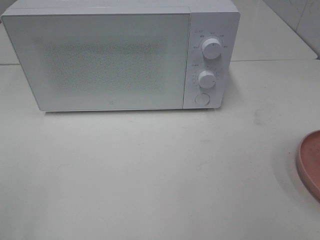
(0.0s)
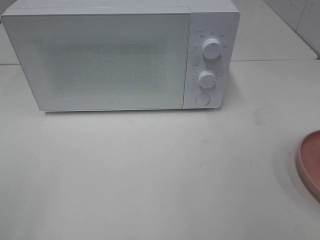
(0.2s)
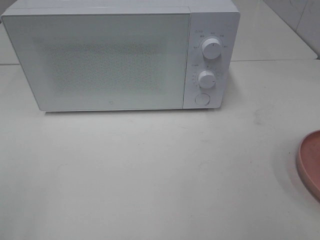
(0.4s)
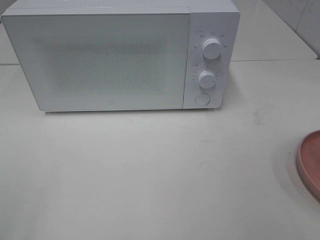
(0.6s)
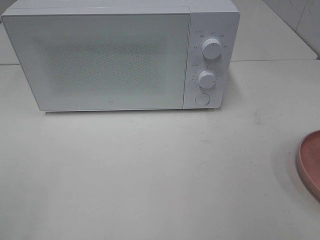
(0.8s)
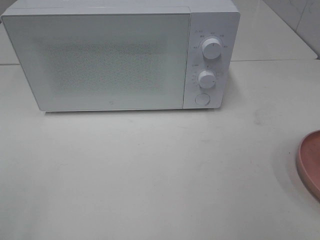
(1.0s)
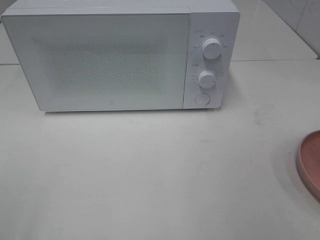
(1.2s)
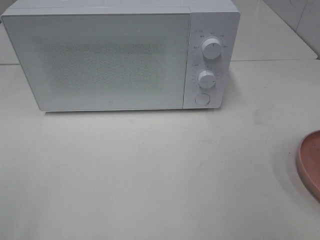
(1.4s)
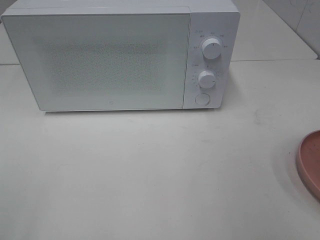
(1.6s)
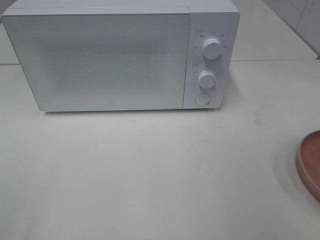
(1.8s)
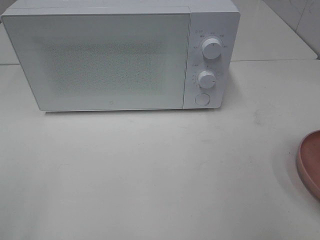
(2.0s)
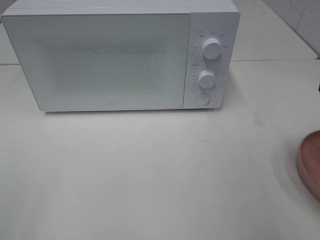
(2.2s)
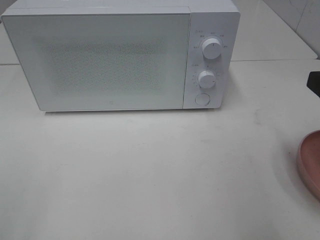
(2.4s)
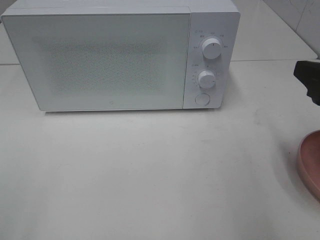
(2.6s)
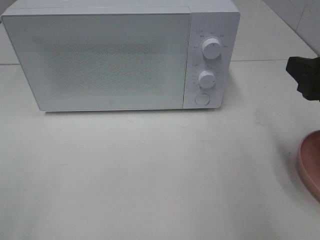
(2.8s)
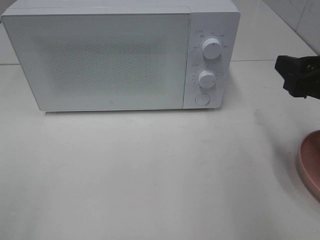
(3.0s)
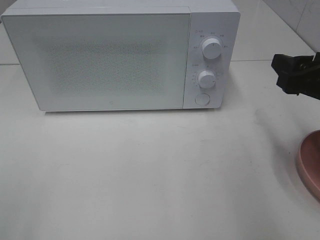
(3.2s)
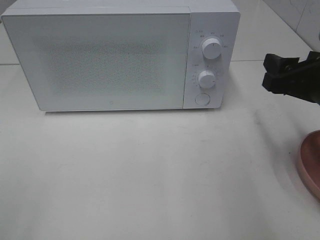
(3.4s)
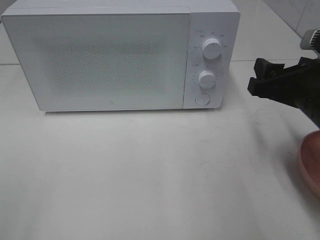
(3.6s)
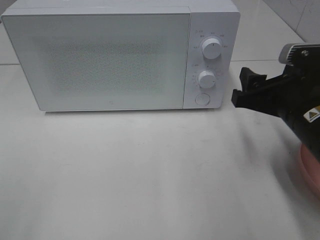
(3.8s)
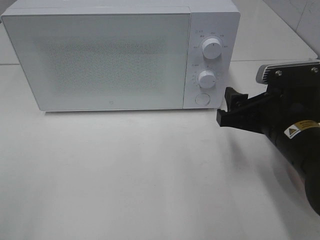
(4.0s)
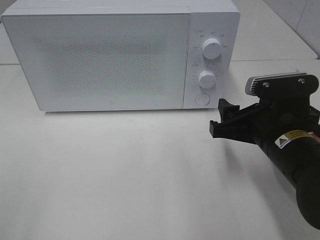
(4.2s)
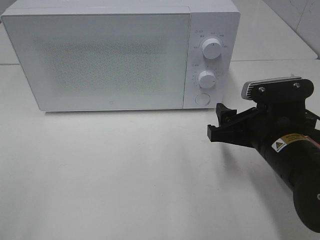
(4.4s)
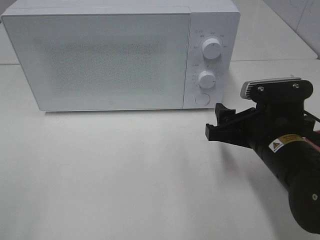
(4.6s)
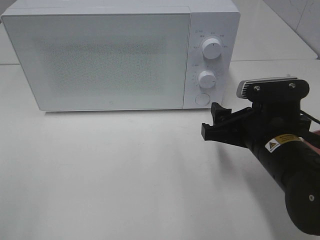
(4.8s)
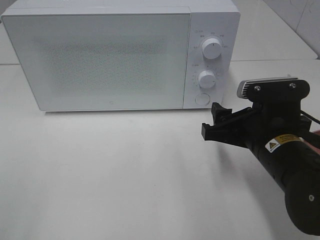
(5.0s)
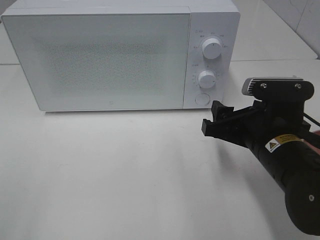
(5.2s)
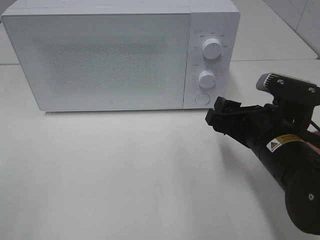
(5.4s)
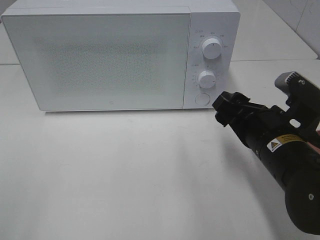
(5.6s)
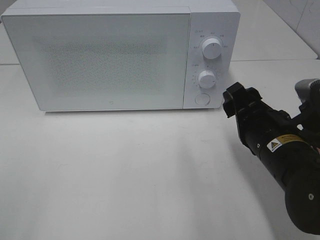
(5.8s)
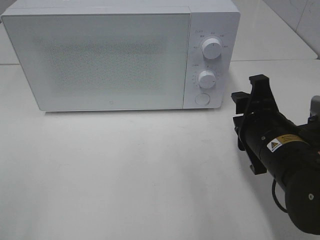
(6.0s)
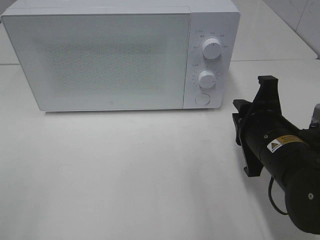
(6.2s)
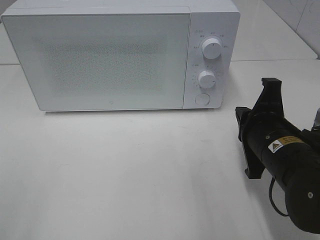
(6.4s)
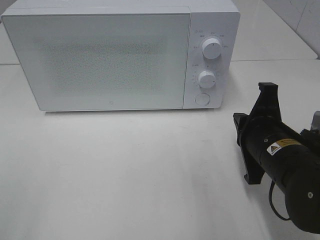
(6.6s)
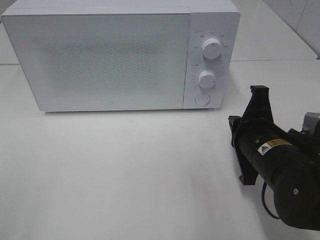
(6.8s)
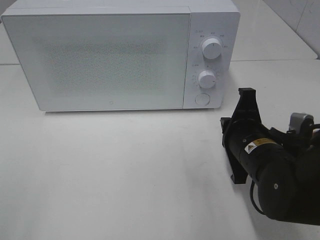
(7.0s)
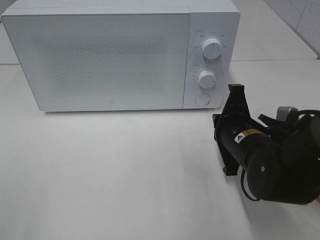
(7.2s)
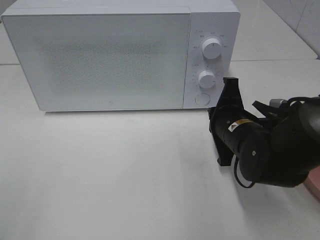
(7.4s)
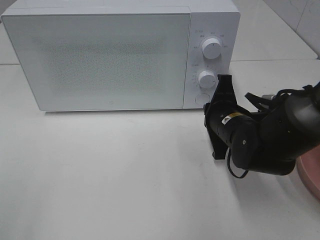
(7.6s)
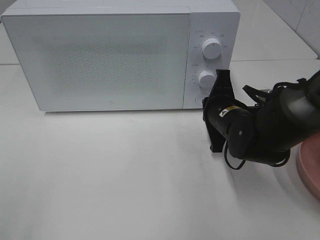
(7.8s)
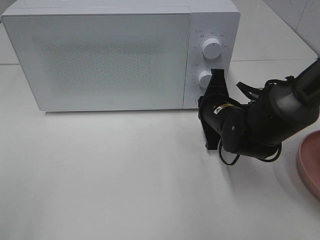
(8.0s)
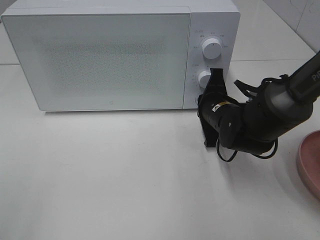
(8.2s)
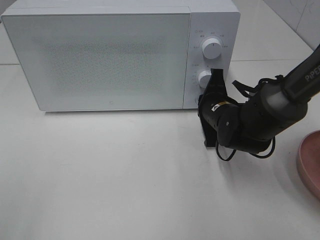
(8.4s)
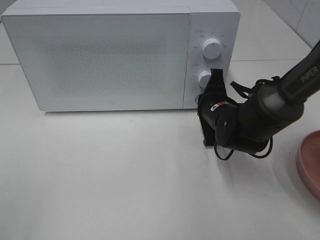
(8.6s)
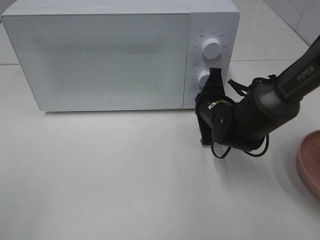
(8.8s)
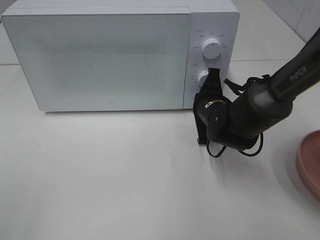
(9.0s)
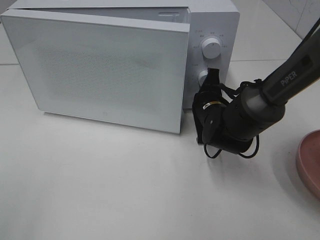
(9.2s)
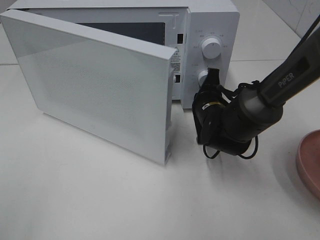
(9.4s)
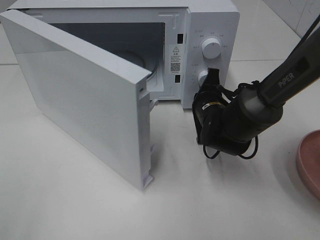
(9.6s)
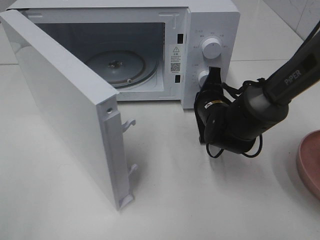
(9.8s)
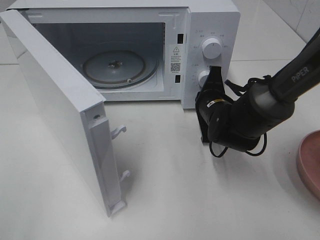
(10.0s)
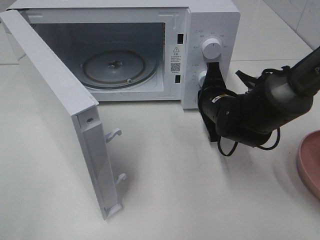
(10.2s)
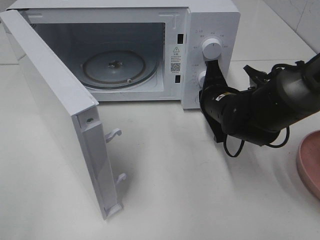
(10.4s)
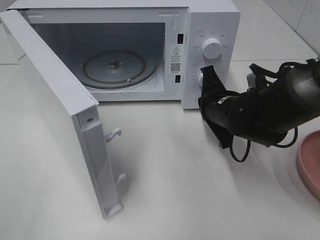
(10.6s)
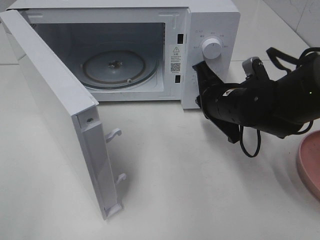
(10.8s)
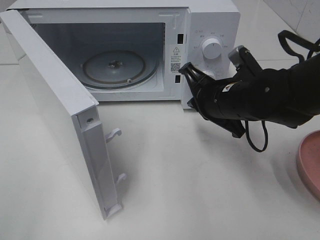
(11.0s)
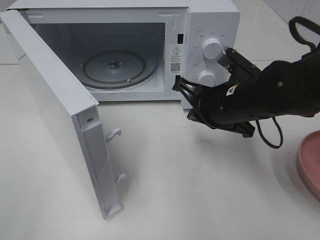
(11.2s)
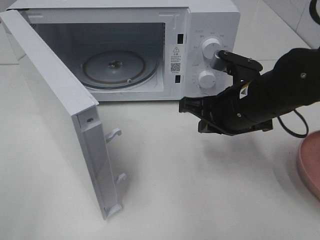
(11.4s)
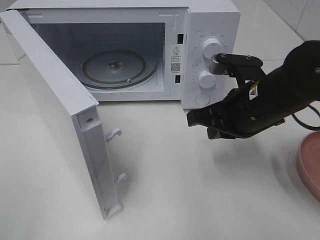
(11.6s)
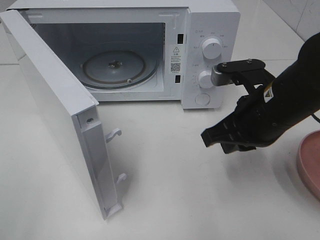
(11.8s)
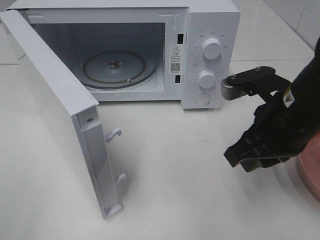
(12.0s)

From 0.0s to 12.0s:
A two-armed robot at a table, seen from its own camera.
Task of the whole recording: Heat the burger.
Step, from 0.0s to 10.6s: Right hand: press the switch.
From 1.6s to 3.0s: The right gripper shifts approximately 15 cm forward and downward.
From 3.0s to 4.4s: The right gripper heads downward and to the left, covering some 10 cm.
From 6.0s to 7.6s: The right gripper is displaced forward by roughly 10 cm, and closes its fingers.
From 7.6s to 9.0s: The right gripper travels forward by some 5 cm.
From 10.4s to 12.0s: The right gripper shifts some 15 cm backward and upward, and opens.

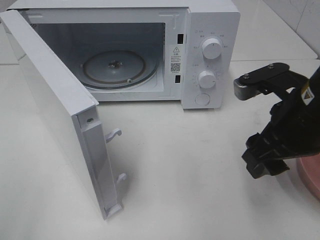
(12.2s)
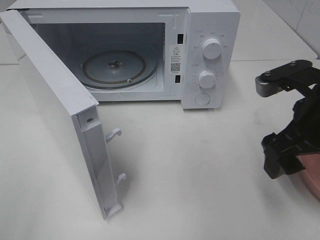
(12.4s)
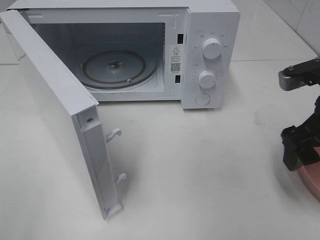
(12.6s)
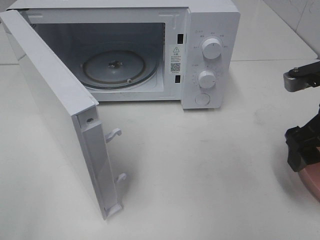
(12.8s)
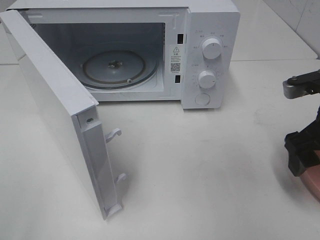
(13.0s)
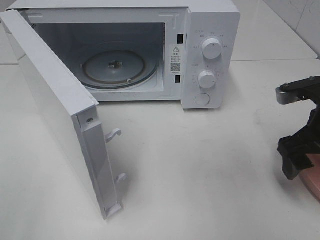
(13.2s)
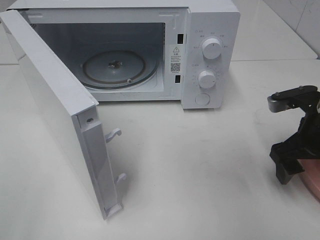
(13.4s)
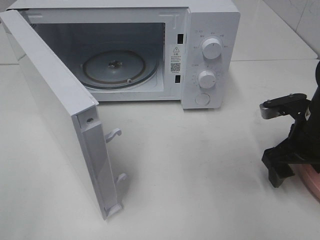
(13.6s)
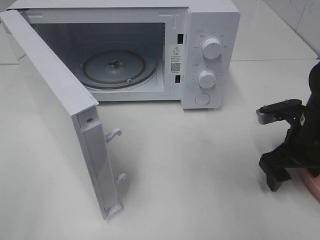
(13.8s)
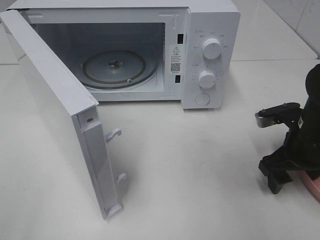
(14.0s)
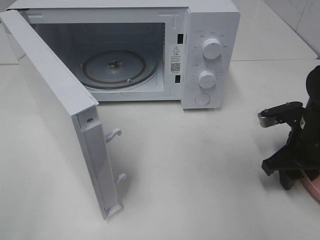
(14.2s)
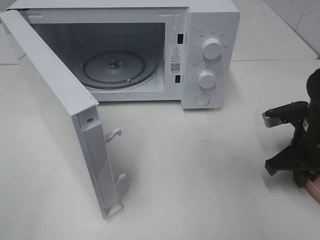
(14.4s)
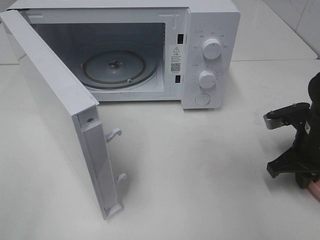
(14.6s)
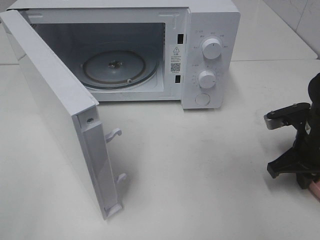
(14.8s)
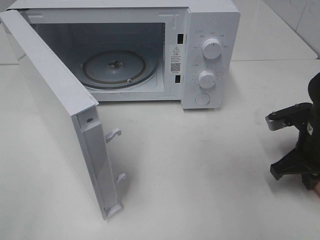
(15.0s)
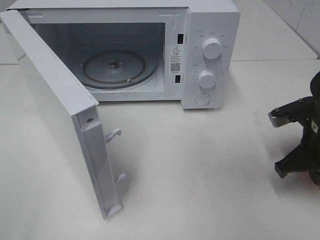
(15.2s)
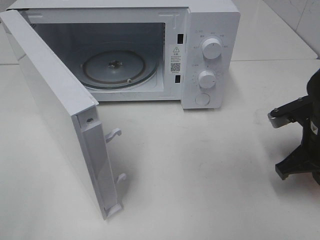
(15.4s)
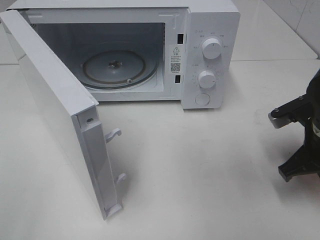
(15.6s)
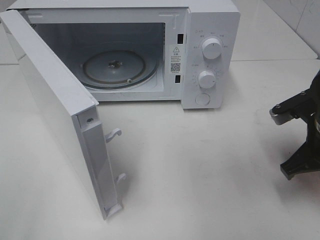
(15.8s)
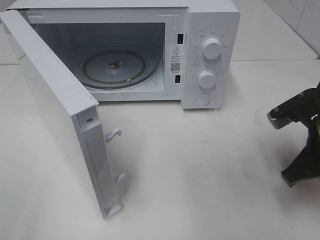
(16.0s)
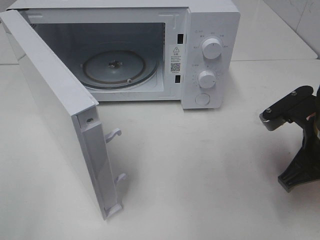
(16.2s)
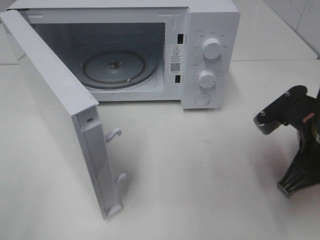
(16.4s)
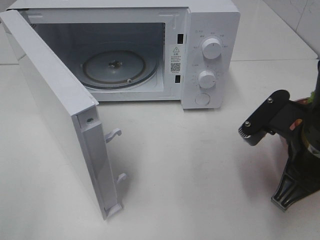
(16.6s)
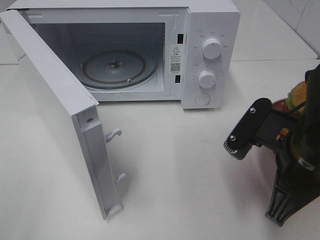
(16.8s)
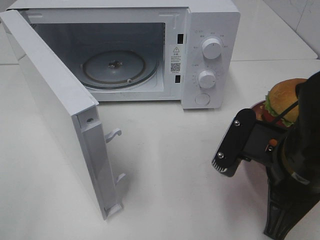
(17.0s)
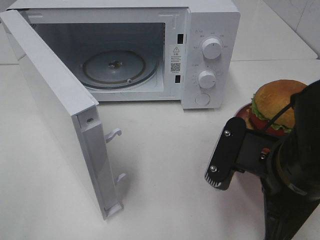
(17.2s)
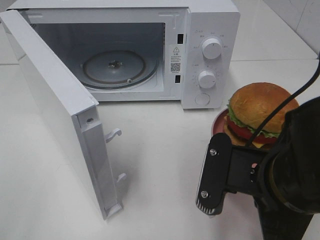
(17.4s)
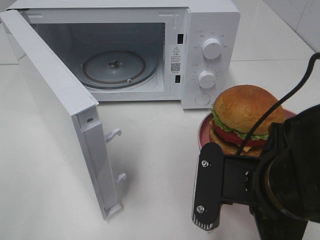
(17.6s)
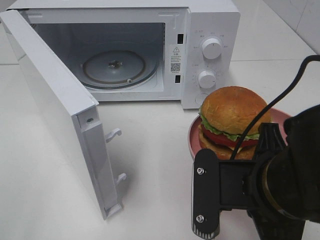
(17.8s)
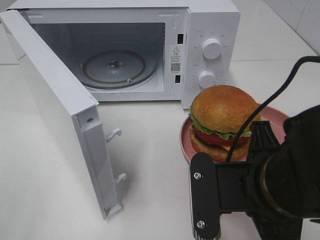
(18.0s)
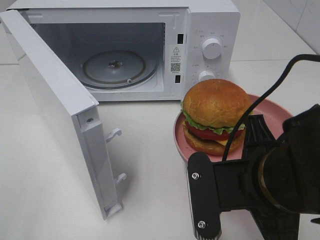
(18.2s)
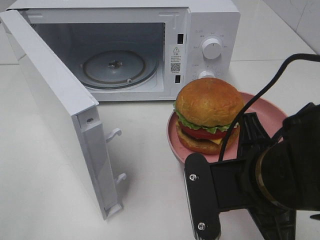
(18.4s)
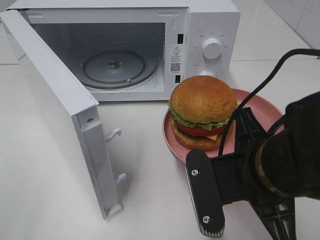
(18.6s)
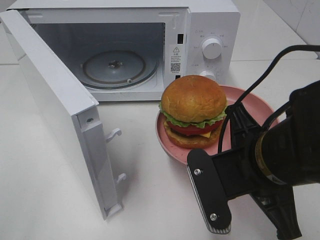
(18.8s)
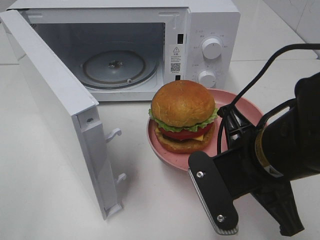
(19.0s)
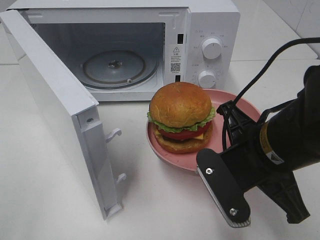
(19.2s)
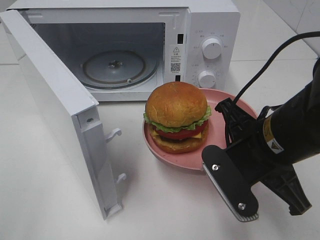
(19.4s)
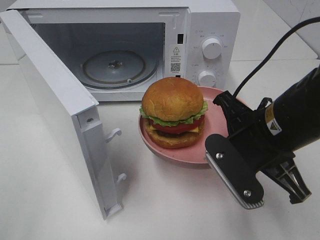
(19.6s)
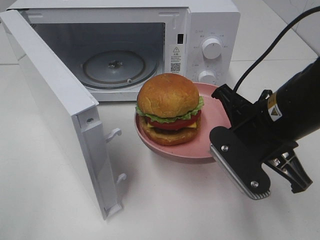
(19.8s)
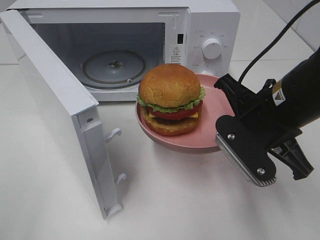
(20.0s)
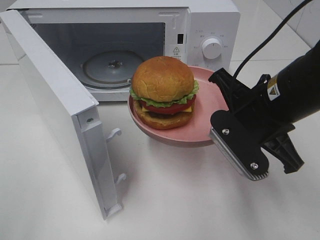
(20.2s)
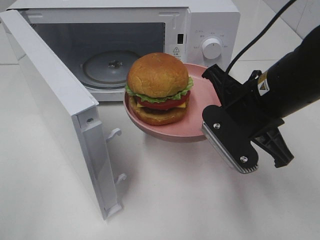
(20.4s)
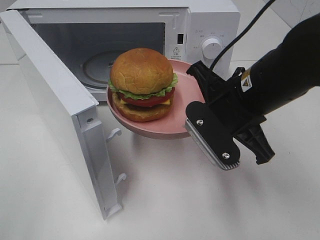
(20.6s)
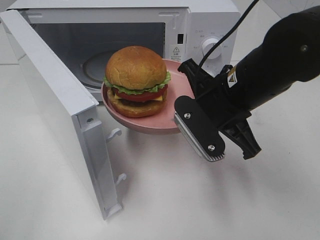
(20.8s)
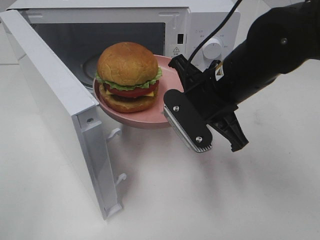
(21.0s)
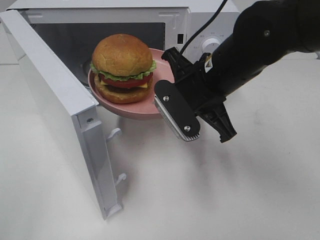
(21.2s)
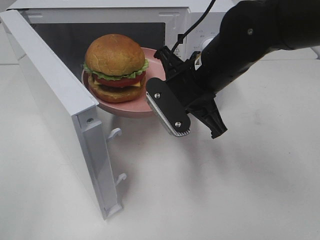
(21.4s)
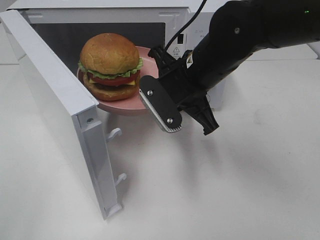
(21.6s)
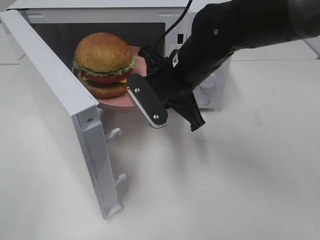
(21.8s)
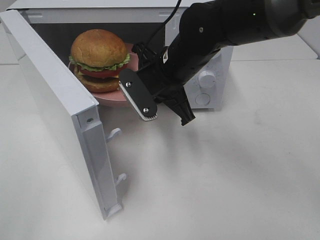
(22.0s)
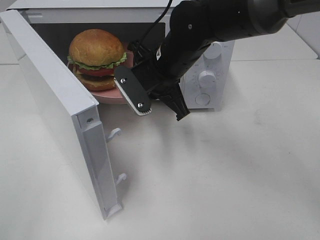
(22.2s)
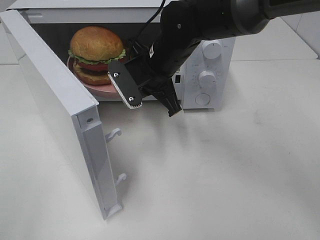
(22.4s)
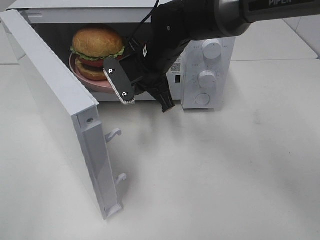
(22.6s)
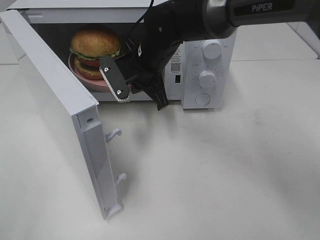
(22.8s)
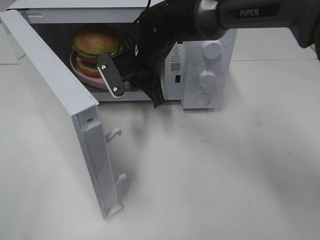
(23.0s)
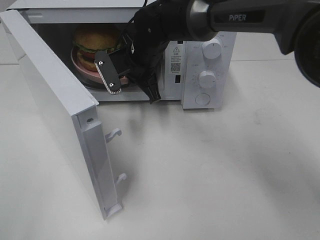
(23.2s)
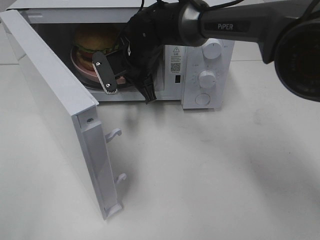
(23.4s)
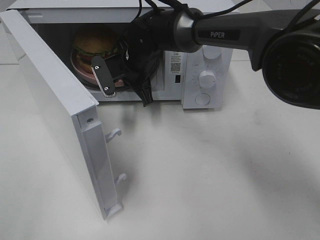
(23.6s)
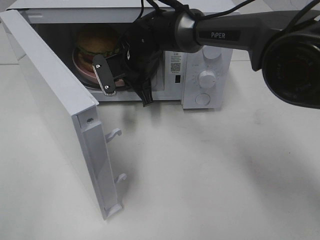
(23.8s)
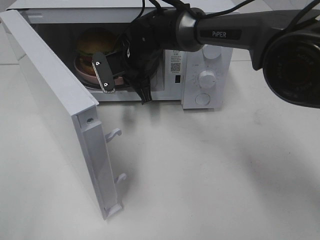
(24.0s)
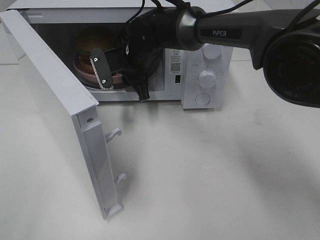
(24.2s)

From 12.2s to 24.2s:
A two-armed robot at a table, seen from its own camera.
Task of the whole recording: Heat the burger.
Step, from 12.2s to 15.6s: Right hand: grab the plate with the hamburger.
From 12.2s to 13.8s: The right gripper goes approximately 15 cm downward, to the right and forward.
From 13.8s to 15.2s: The right gripper closes up.
From 15.2s to 16.6s: The right gripper shifts roughly 10 cm to the left, backward and upward.
From 16.6s to 18.2s: The right gripper goes roughly 10 cm to the left and backward.
From 18.2s to 19.8s: The right gripper heads forward, covering about 10 cm.
From 19.8s to 21.2s: The right gripper is displaced forward and to the left by approximately 10 cm.
From 21.2s to 22.6s: The right gripper heads forward and to the left, covering about 15 cm.
From 22.6s to 24.2s: The right gripper goes roughly 5 cm forward, and opens its fingers.
